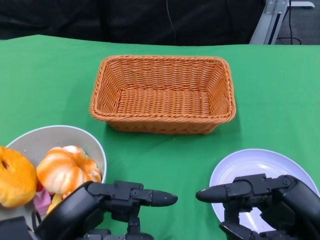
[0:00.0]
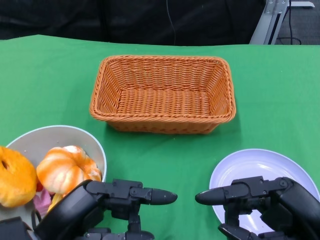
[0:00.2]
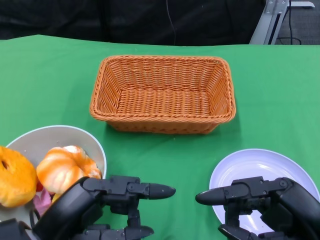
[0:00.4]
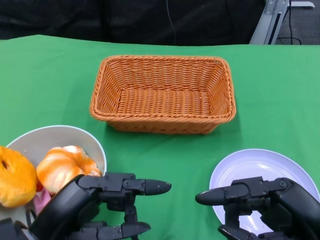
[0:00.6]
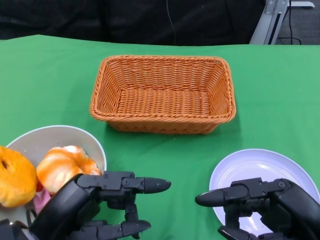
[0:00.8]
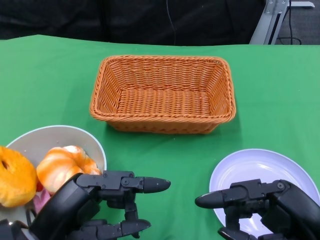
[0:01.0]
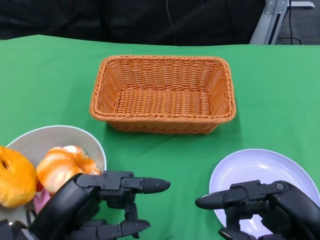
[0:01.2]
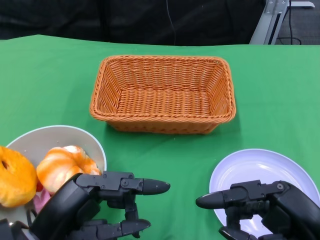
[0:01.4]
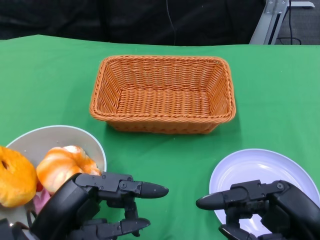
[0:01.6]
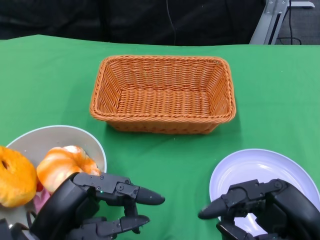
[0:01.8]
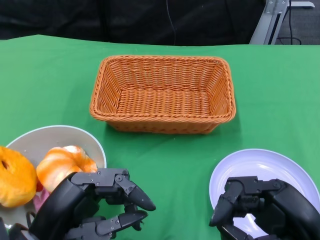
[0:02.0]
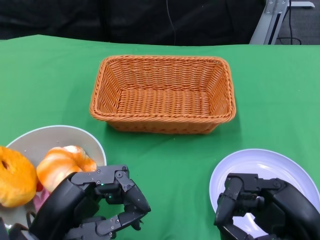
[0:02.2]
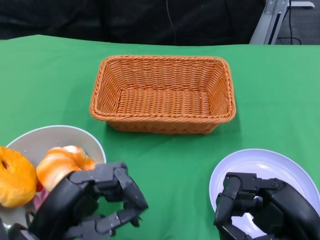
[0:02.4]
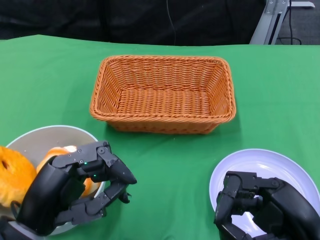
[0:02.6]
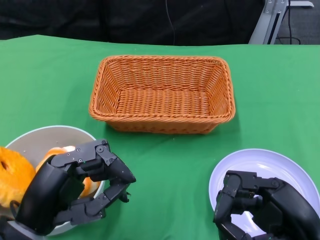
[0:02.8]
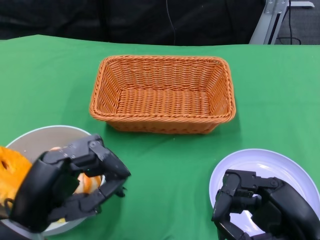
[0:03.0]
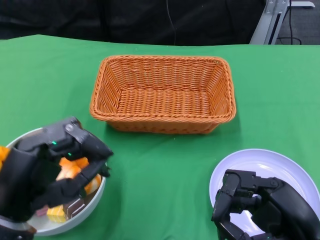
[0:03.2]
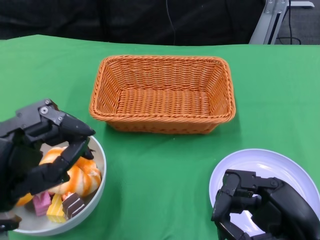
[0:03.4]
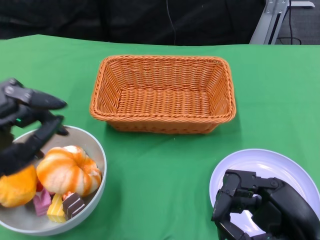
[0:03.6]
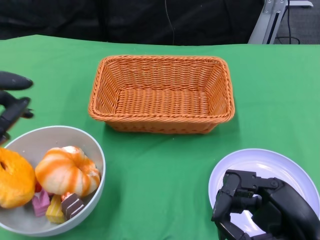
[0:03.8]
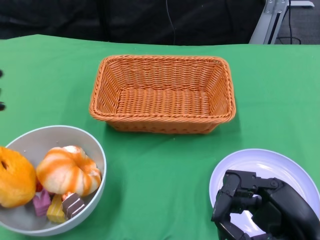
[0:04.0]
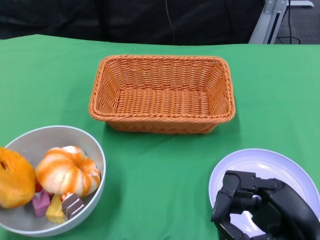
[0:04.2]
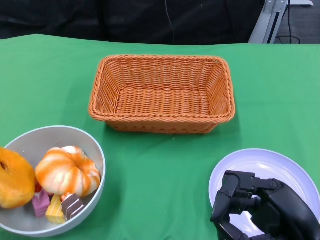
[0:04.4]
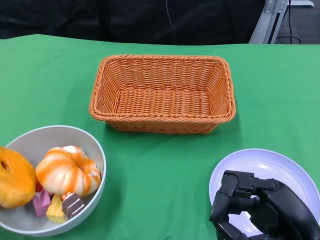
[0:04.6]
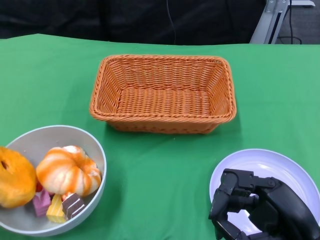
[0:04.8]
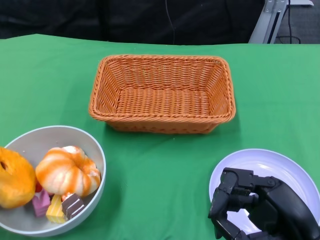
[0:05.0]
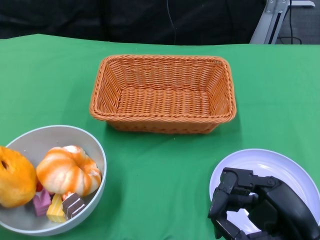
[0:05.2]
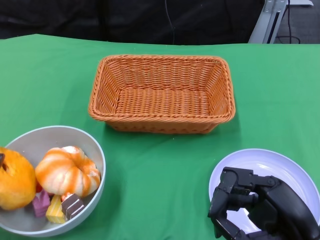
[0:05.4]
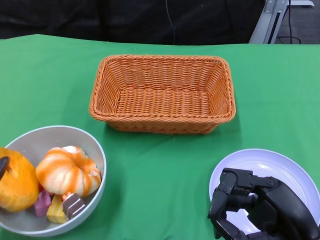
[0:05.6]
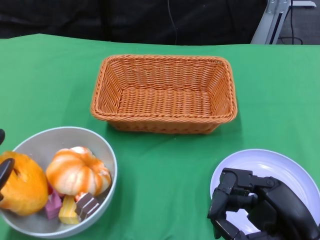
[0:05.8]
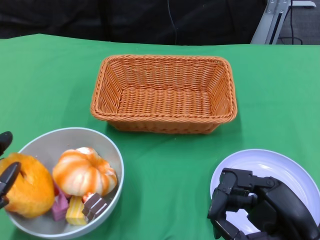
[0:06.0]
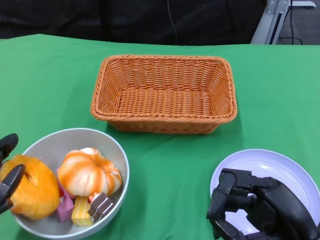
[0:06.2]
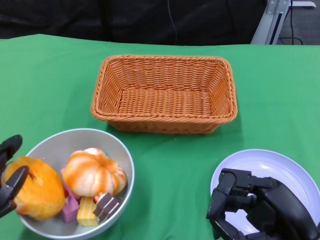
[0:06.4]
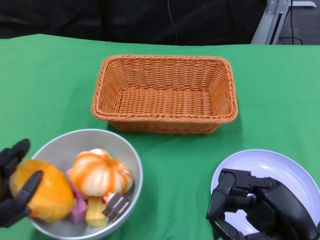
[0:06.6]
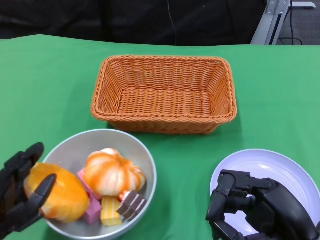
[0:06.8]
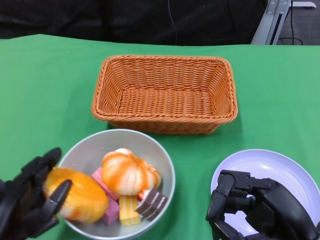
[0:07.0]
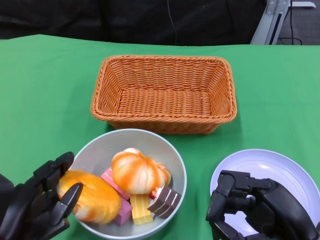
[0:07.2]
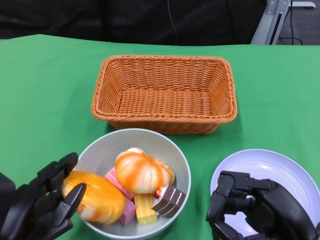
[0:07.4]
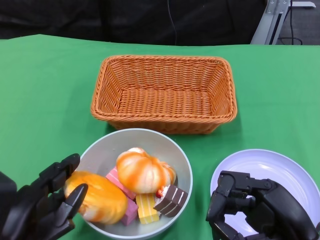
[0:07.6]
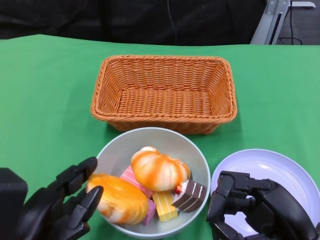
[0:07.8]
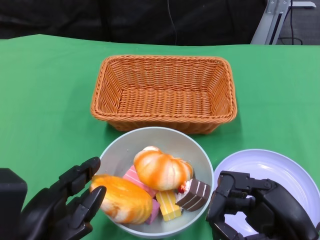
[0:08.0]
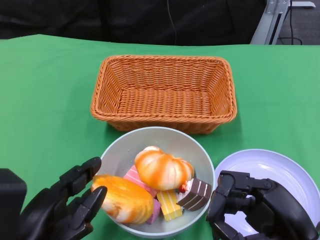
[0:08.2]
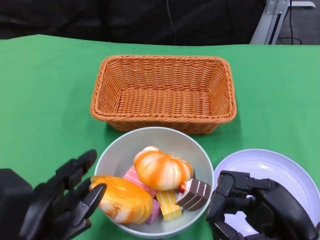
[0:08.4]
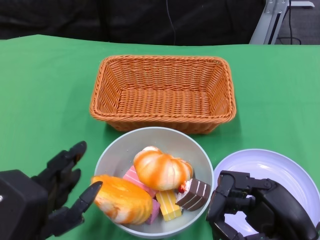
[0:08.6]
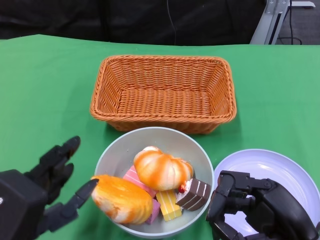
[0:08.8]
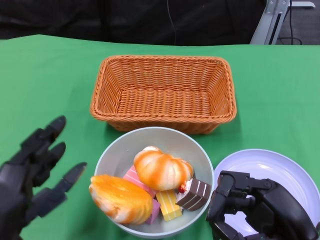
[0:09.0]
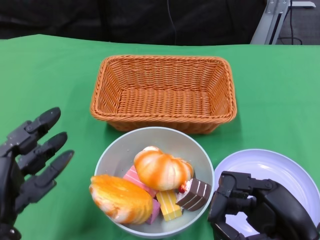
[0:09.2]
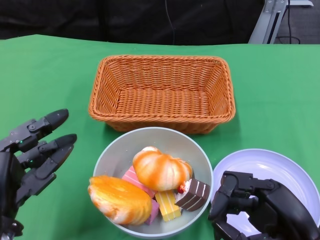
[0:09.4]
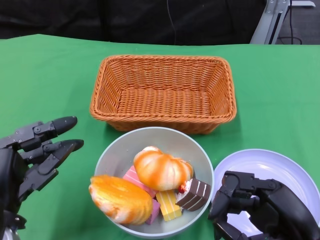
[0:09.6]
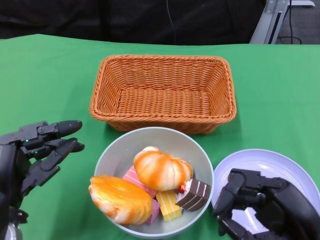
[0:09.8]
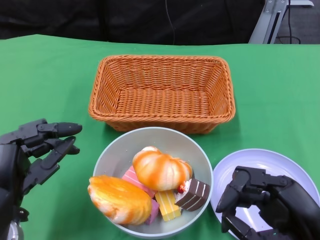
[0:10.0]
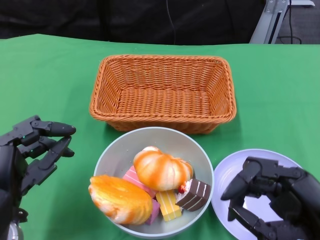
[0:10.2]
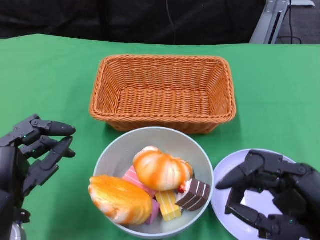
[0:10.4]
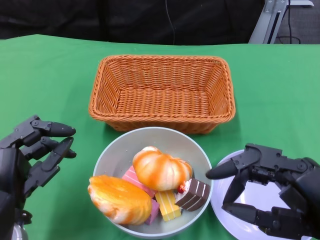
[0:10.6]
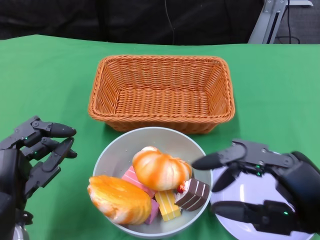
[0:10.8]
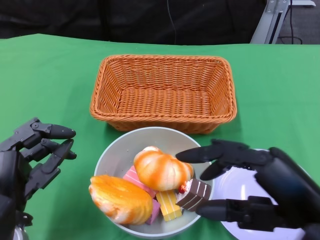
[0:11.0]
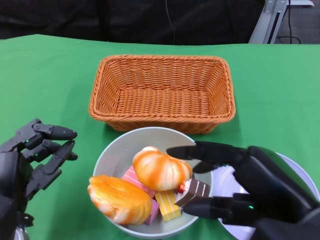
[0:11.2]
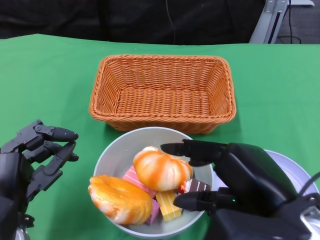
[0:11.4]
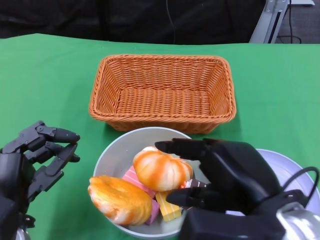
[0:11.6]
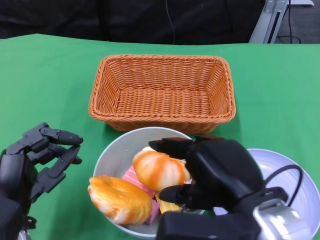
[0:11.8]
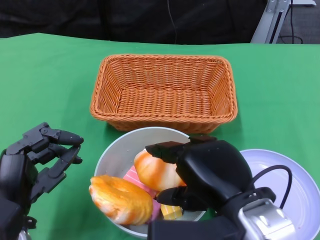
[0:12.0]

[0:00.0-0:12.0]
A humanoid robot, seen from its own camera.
Step, 0:00.0 to 0:08.6: Push the bowl to the center of the table using the left gripper.
0:01.6 to 0:03.0: The hands make only small movements.
0:03.0 to 0:04.4: The left hand travels to the left by about 10 cm.
0:06.0 to 0:07.6: The left hand moves to the right, about 5 cm.
0:09.0 to 0:10.4: The left hand is displaced downward and forward by about 10 cm.
0:10.4 to 0:12.0: The right hand travels to the left by roughly 10 cm.

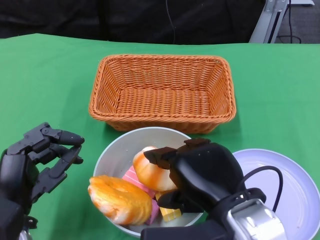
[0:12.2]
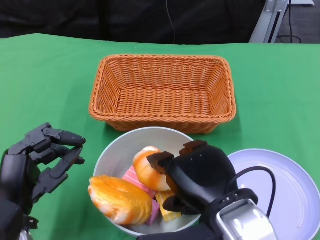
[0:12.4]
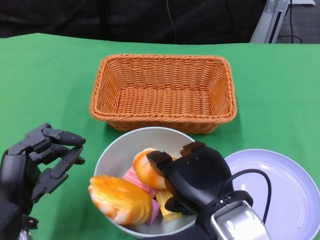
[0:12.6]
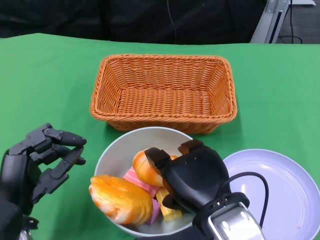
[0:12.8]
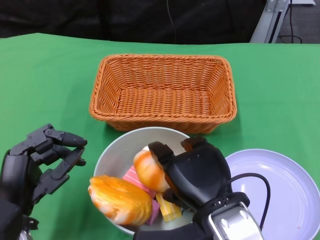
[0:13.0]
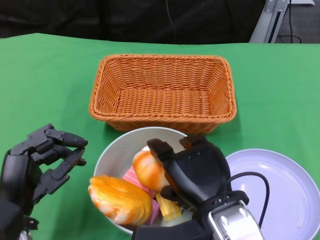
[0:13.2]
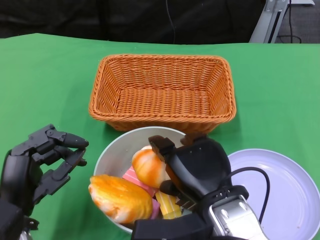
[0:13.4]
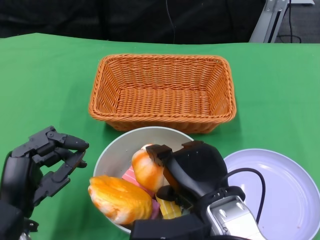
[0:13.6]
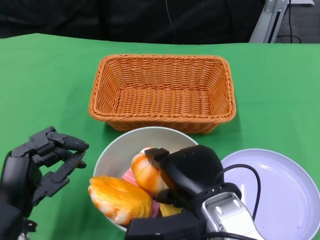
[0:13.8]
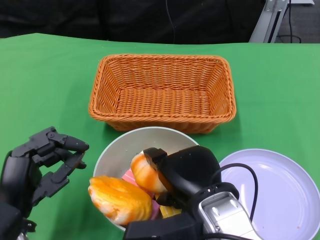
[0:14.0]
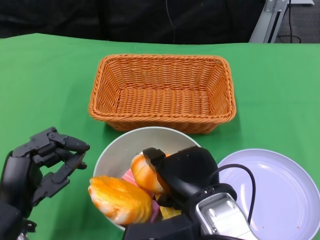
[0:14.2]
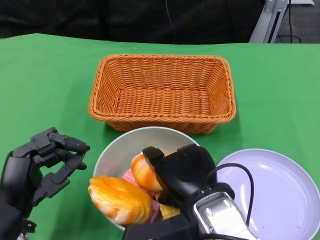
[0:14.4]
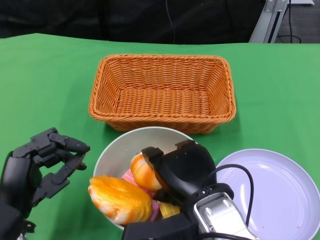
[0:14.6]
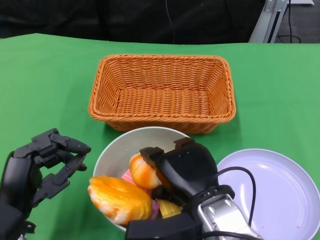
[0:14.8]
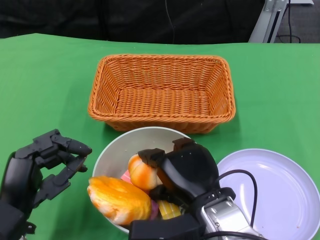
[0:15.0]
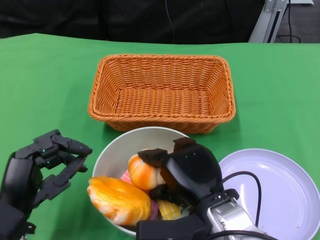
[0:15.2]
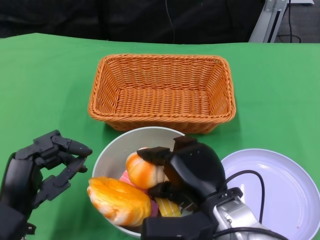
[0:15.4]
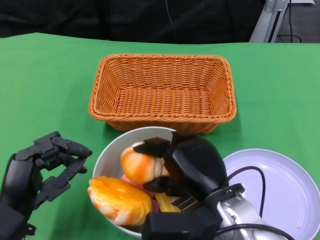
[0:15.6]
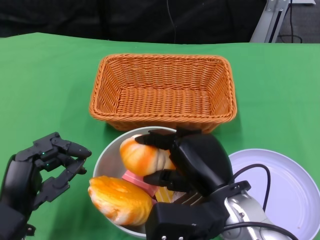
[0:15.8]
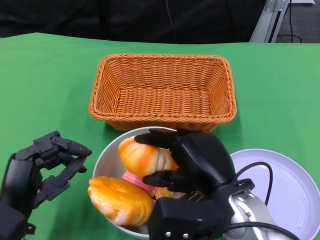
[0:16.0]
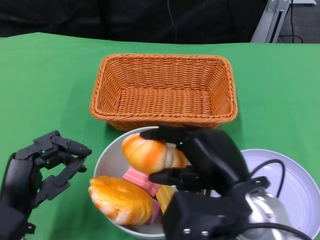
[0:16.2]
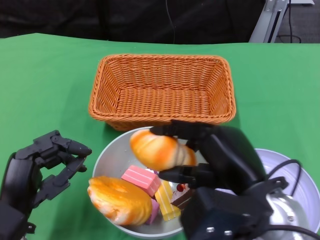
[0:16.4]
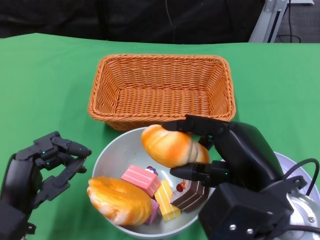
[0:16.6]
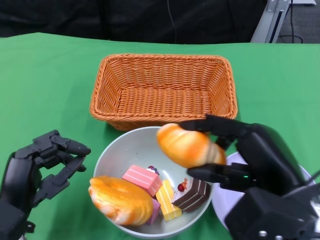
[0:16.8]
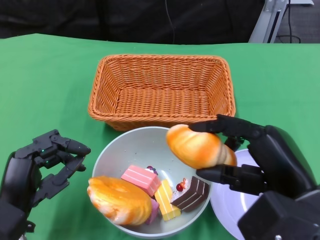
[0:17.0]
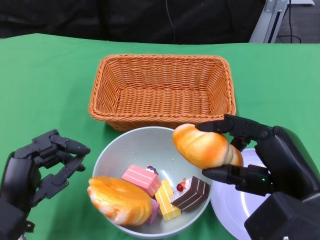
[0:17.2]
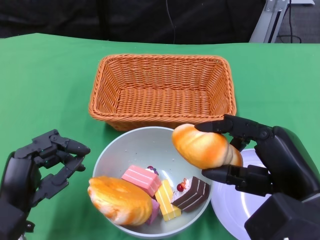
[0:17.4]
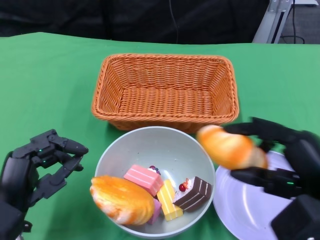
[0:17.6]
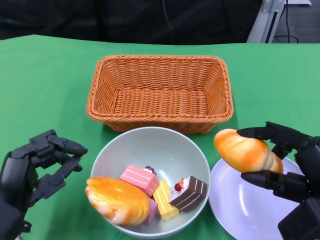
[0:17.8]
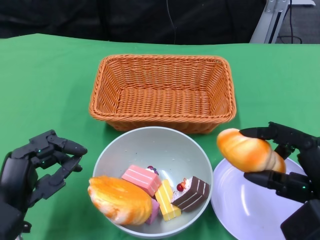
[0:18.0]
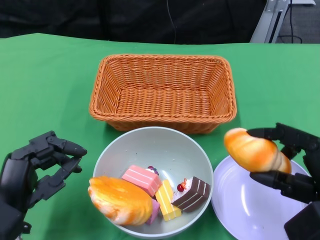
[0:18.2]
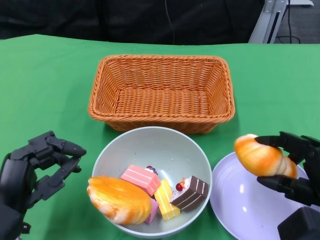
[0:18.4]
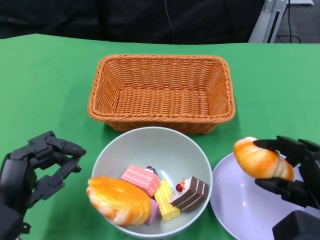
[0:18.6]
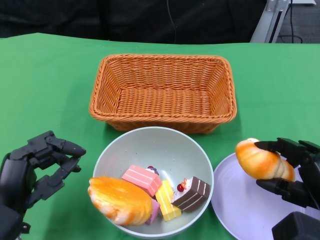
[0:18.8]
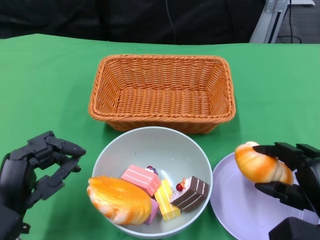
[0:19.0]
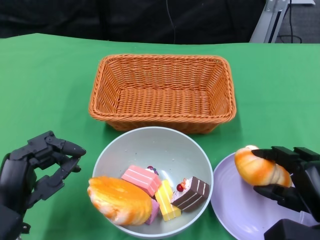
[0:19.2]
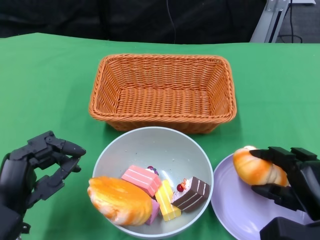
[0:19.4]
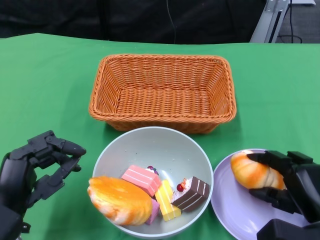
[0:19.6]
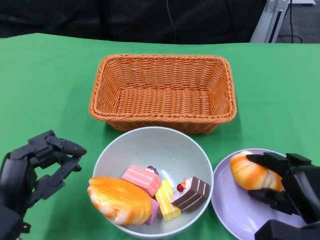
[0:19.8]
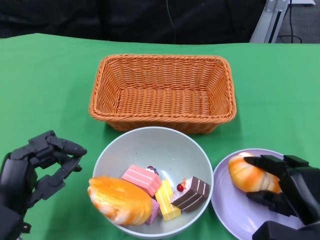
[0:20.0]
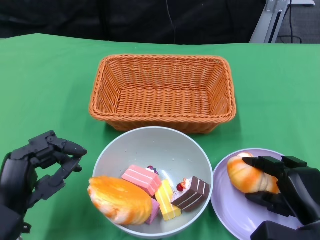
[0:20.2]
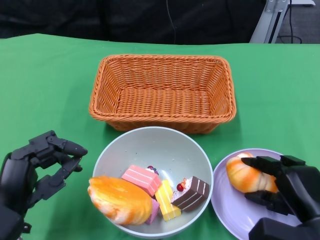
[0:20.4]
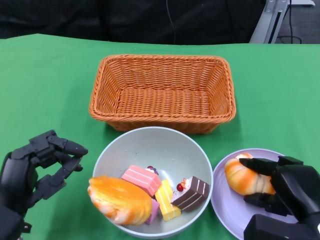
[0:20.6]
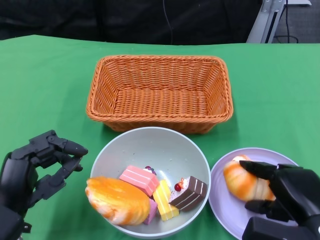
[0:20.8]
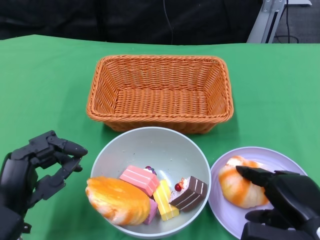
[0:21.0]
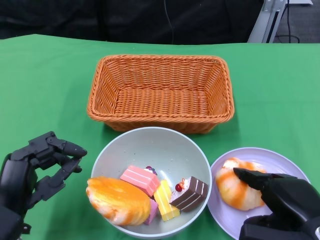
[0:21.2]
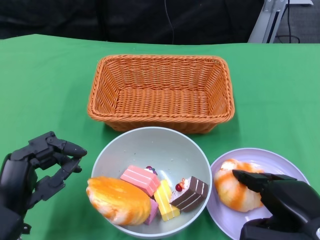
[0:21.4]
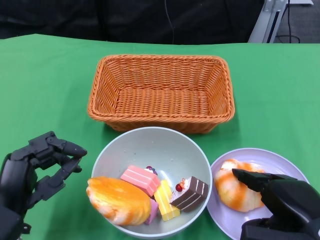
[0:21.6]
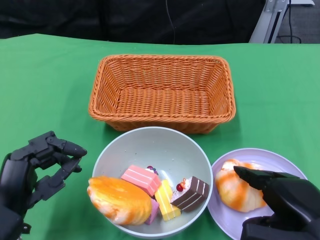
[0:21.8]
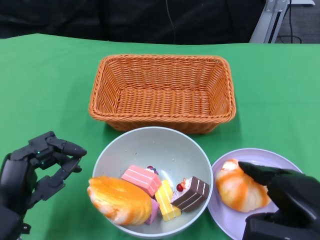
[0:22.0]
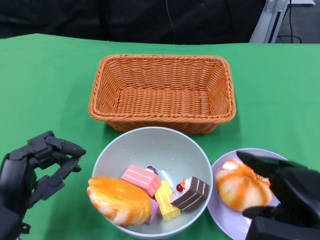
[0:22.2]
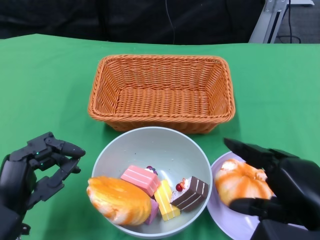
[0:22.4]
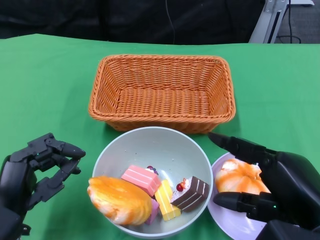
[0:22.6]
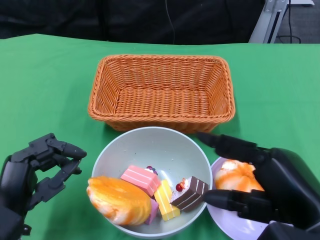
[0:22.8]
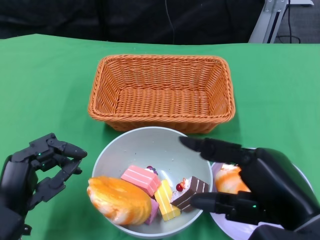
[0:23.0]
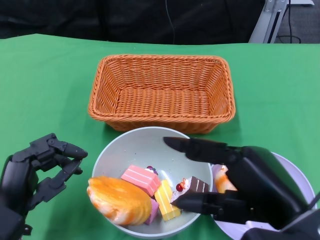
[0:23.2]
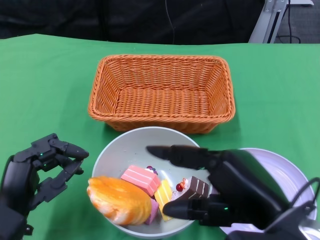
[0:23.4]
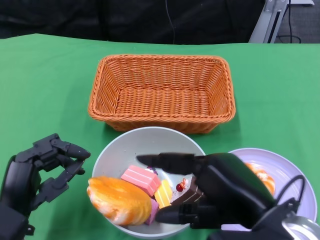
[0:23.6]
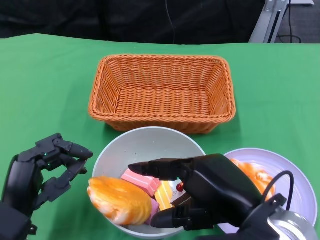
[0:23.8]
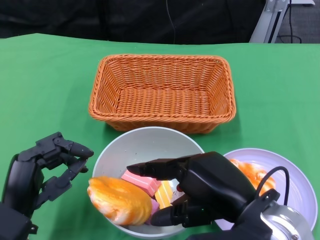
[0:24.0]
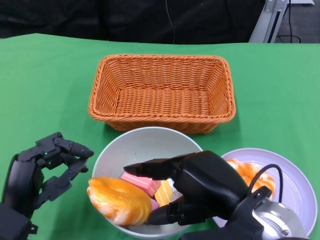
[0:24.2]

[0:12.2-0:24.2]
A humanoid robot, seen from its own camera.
0:12.2 to 0:13.8: The right hand shifts by some 5 cm.
0:13.8 to 0:15.2: The hands move only a little.
0:15.2 to 0:16.6: The right hand heads to the right and upward, covering some 10 cm.
0:16.6 to 0:18.2: The right hand heads to the right, covering approximately 10 cm.
0:18.2 to 0:19.8: The right hand is displaced downward by roughly 10 cm.
0:19.8 to 0:21.2: The right hand heads upward, covering roughly 5 cm.
0:21.2 to 0:22.6: The right hand travels upward by roughly 10 cm.
0:22.6 to 0:24.2: The right hand moves to the left, some 10 cm.
